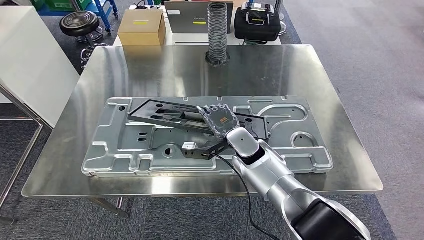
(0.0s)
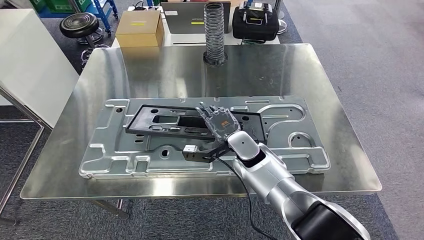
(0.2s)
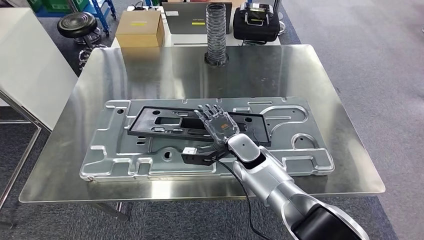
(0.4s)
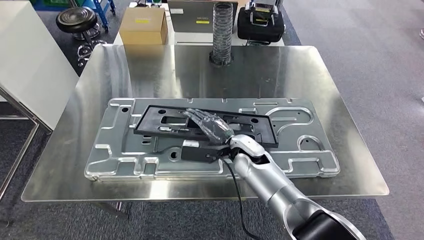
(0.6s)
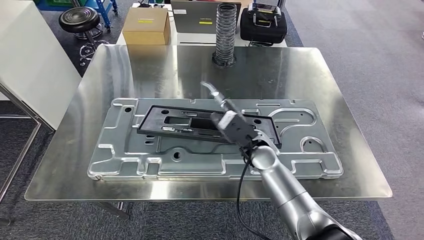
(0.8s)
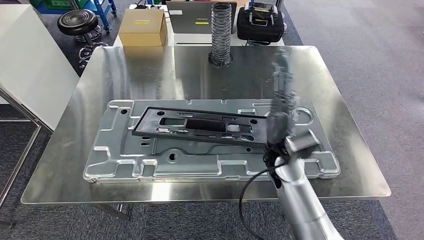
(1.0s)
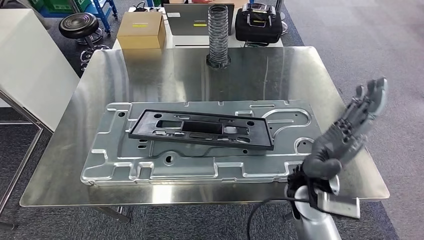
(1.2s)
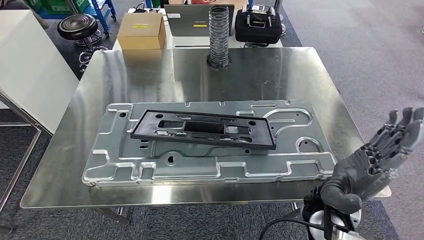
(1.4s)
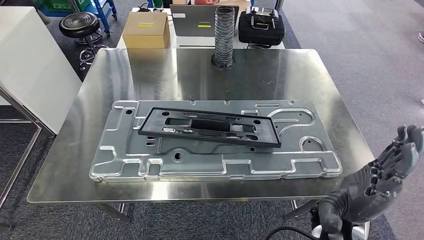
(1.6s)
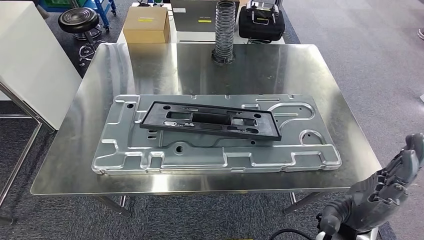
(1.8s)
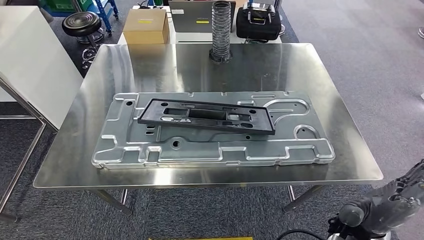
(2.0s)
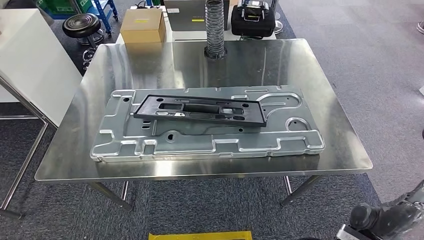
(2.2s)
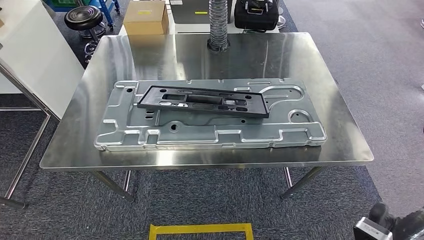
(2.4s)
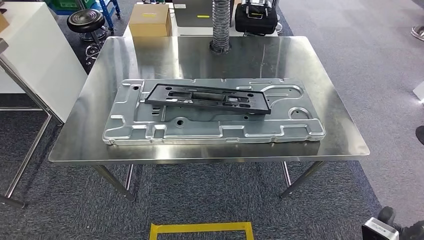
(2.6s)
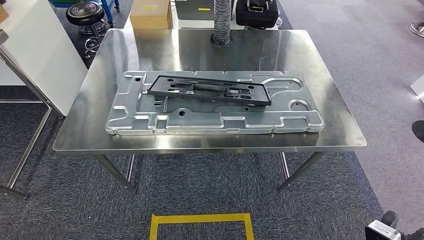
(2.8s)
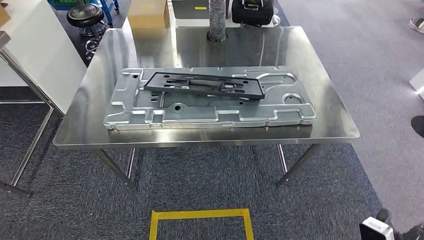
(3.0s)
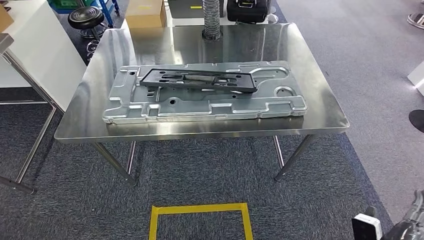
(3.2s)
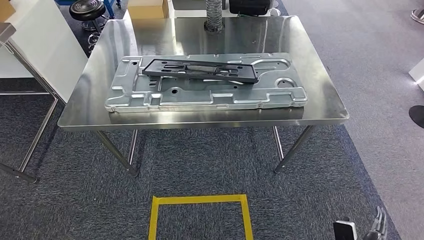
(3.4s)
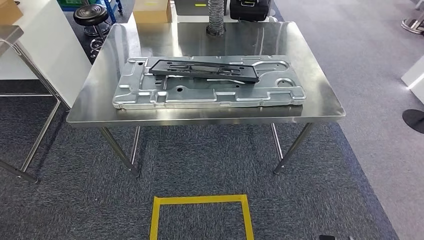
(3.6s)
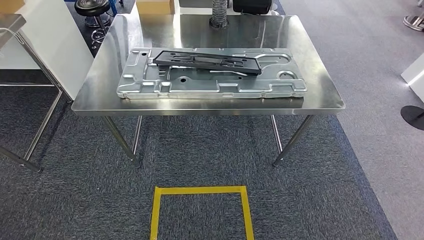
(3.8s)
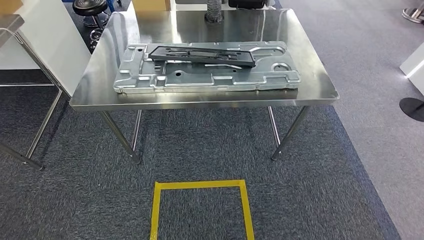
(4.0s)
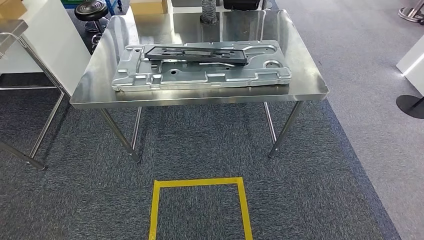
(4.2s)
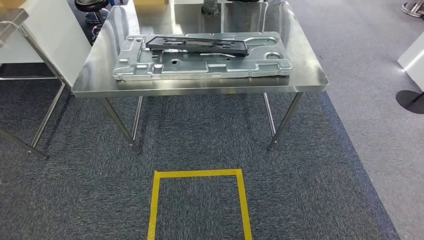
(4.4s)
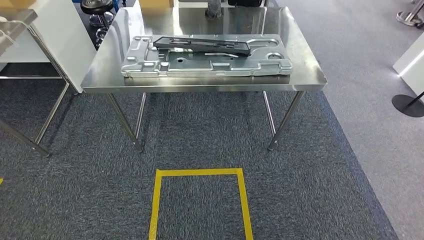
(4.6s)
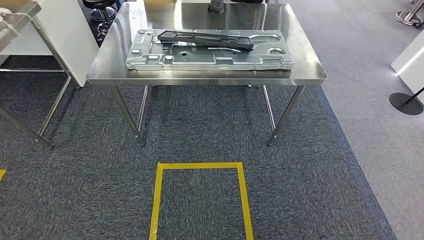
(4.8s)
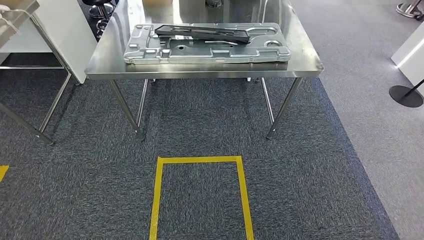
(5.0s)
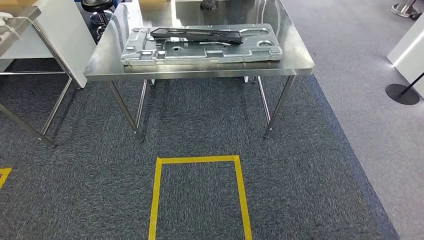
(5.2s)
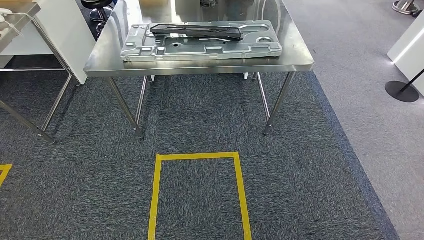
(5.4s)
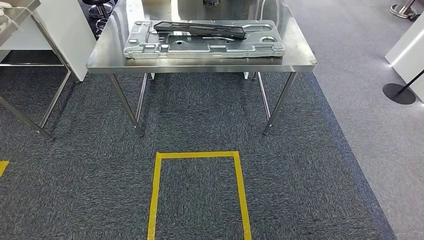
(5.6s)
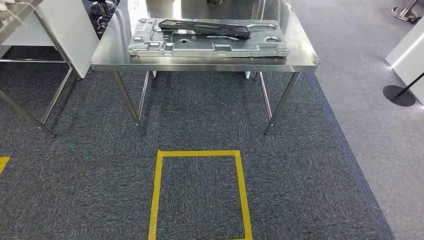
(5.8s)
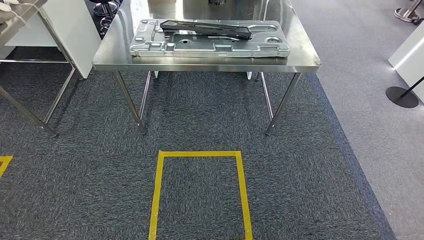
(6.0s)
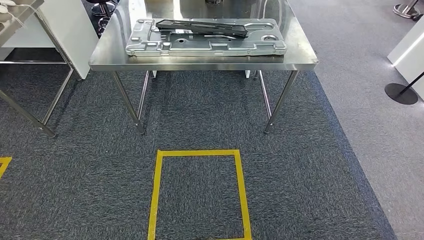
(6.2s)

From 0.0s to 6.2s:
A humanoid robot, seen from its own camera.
Step, from 0.0s to 2.0s: Insert the small component into the corresponding slot on the workbench.
Step, from 2.2s to 6.2s: Return to the initial position at the workbench.
